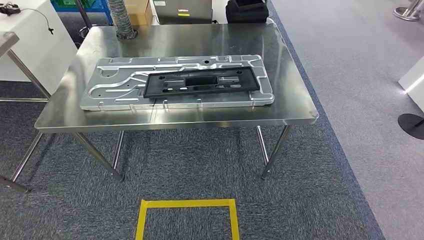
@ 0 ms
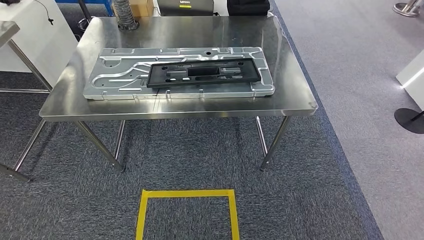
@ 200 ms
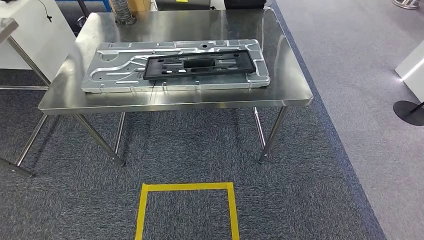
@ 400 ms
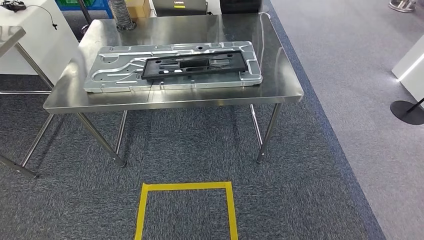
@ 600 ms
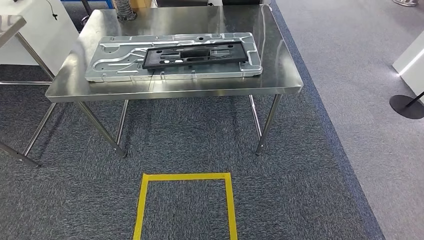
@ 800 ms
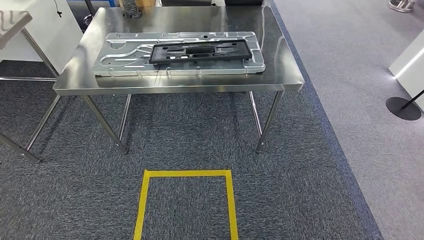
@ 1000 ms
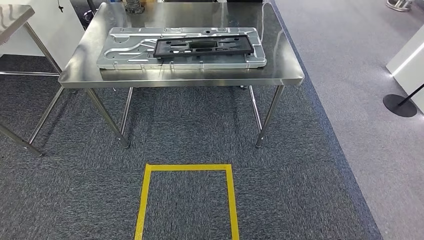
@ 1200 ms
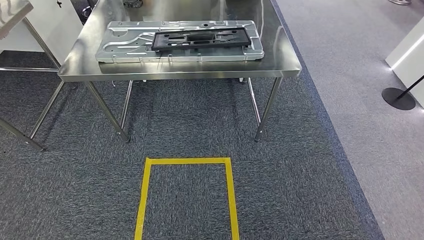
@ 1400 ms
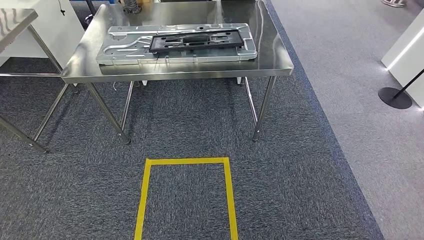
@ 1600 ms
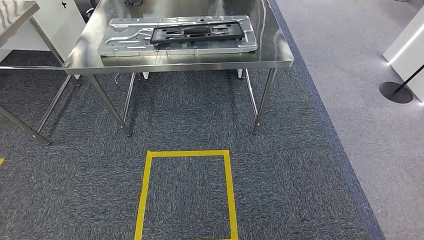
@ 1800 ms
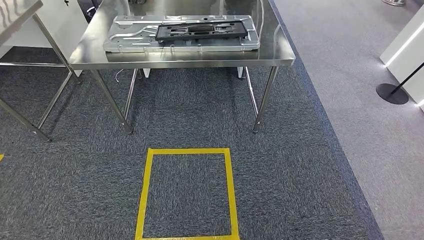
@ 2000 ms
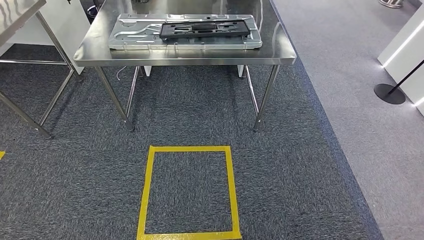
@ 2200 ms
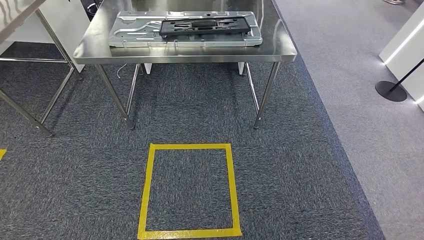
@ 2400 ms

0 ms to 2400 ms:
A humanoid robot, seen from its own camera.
Step, 0 ms to 2400 ms: Move to the initial position of the shelf.
